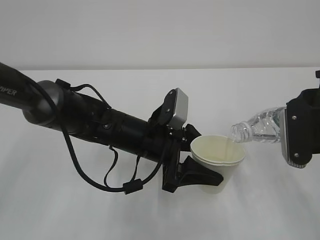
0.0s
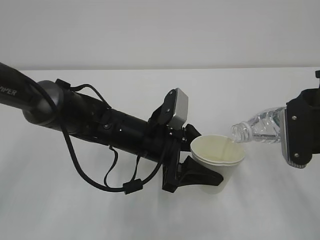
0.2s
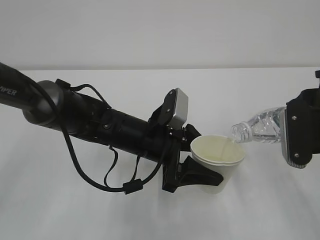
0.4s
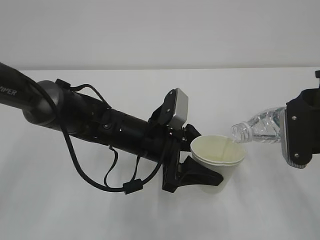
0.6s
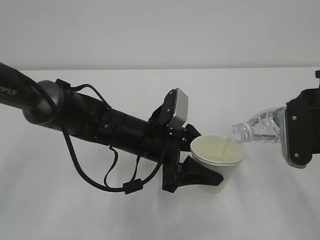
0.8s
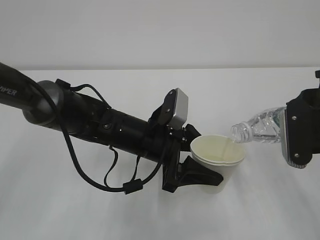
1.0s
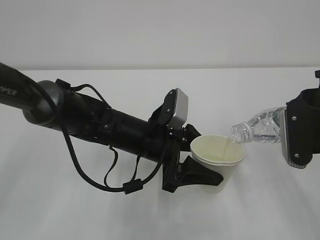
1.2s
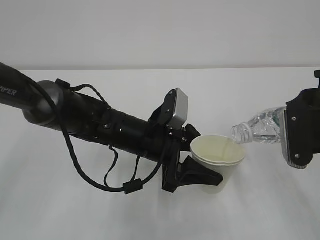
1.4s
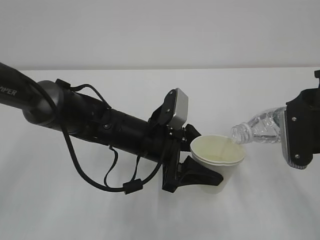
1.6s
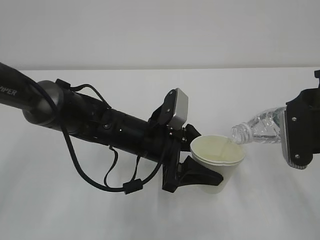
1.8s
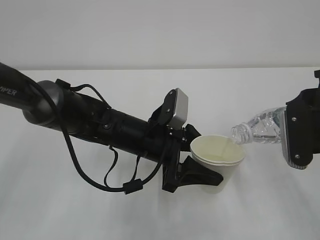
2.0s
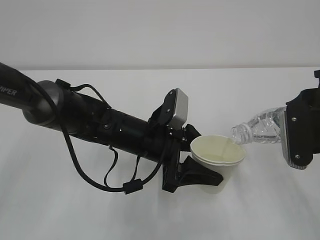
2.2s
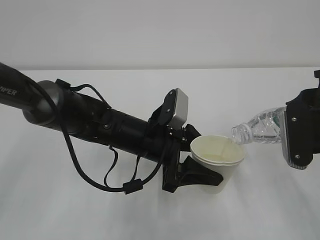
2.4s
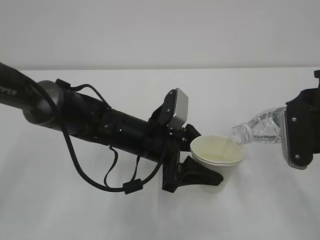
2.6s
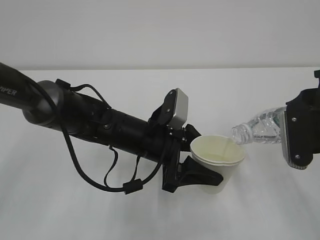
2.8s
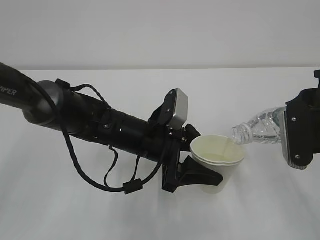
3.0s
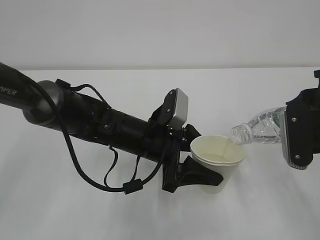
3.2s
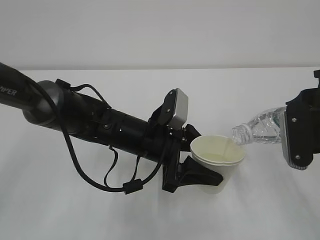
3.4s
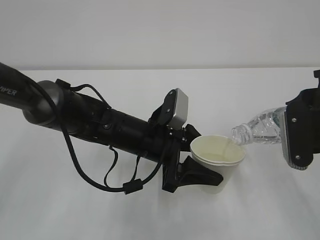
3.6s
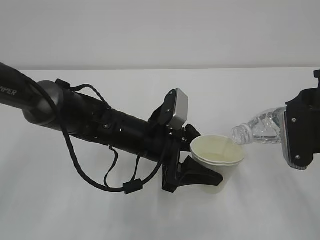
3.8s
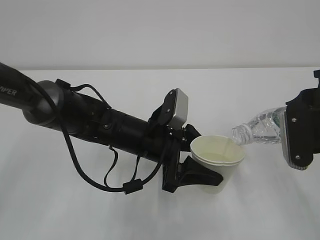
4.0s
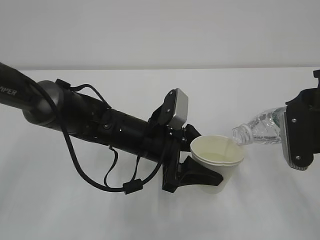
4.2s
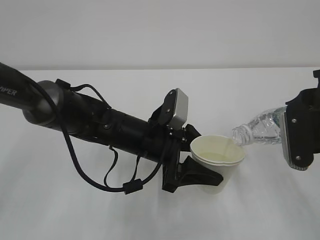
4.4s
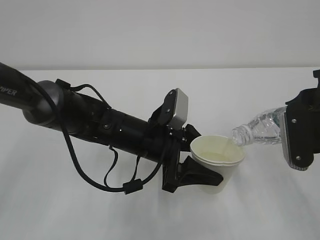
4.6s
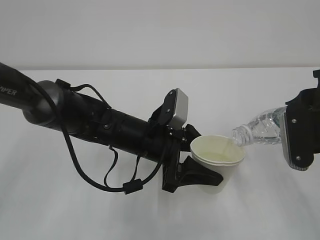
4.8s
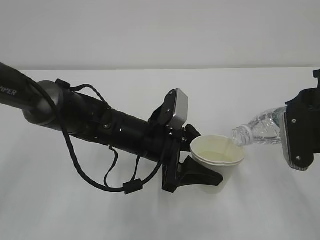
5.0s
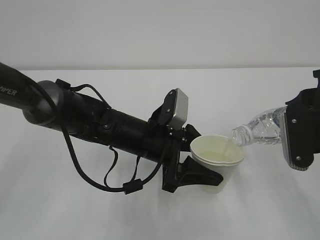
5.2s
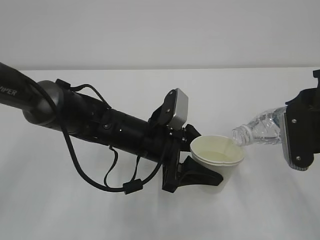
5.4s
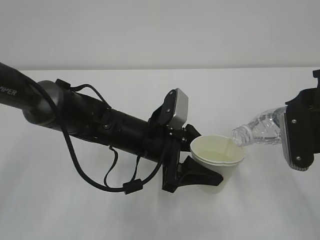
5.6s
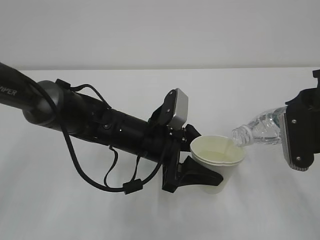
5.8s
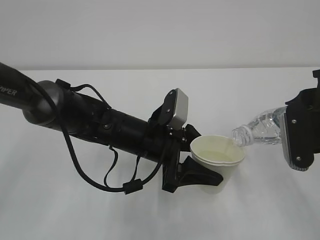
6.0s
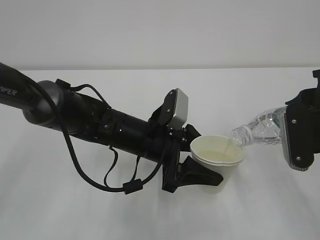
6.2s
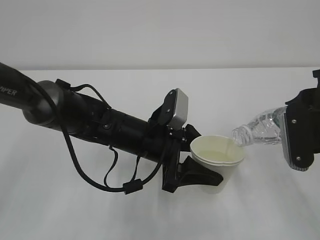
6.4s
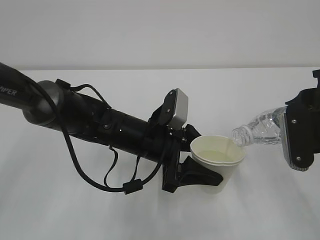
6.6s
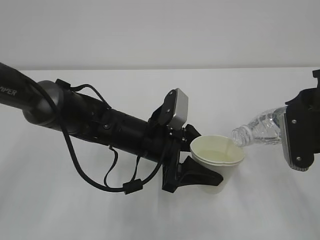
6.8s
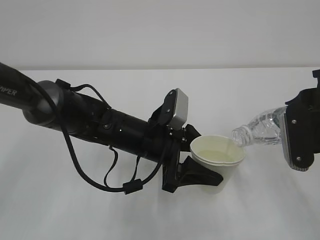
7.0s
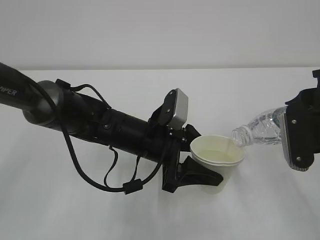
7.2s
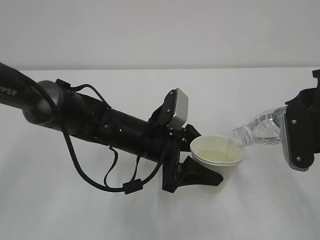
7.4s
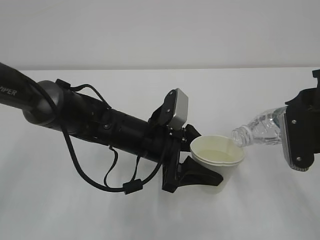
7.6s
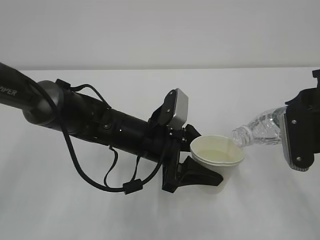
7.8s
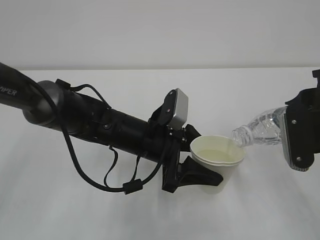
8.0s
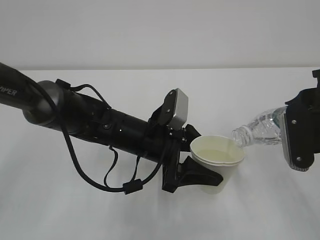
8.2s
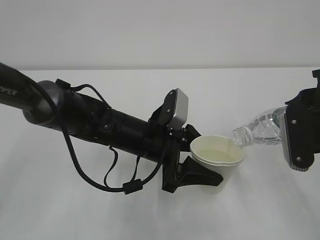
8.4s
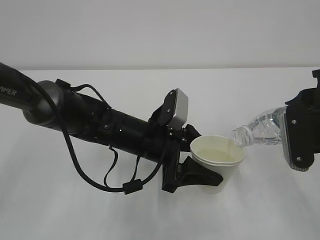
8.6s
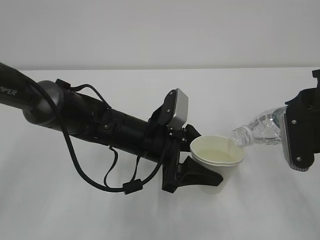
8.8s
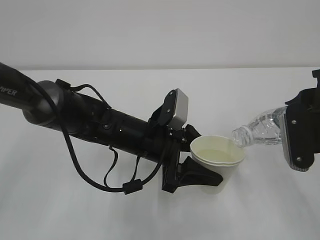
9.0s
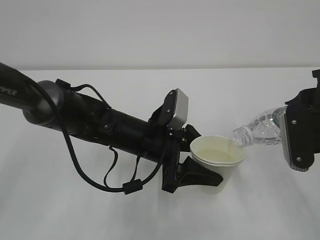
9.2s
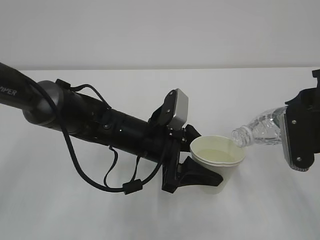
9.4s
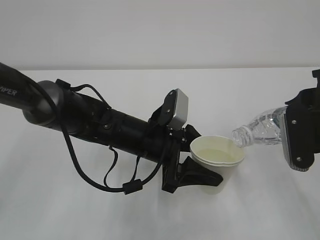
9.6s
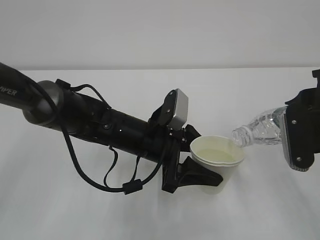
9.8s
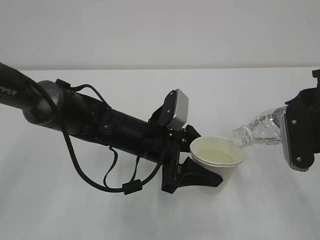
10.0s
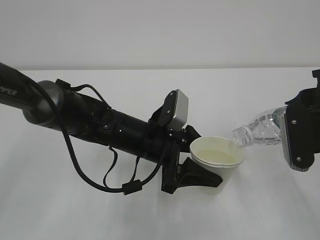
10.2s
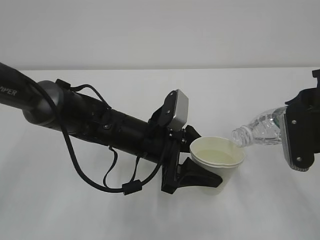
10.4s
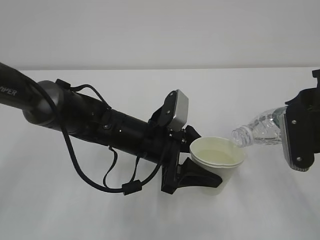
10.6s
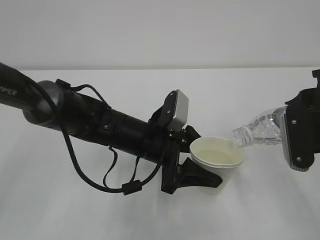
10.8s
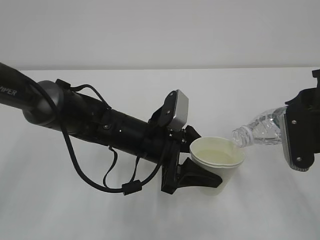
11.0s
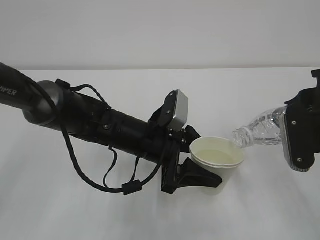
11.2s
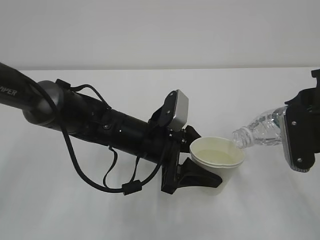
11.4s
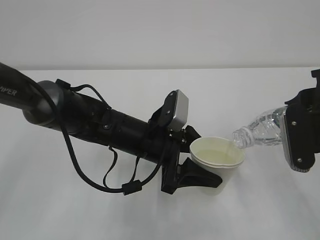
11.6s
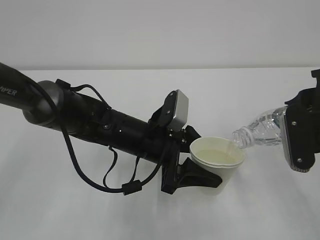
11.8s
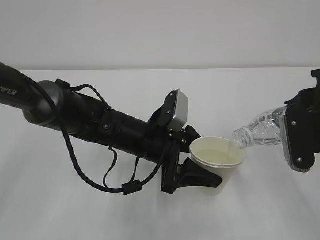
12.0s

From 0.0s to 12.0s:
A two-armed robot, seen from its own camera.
From 0.0s to 10.4s: Neither gripper changes place.
From 10.4s to 12.0s: Neither gripper changes place.

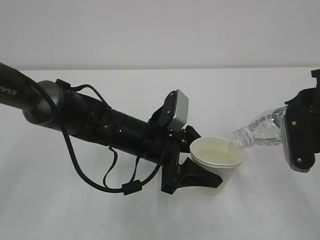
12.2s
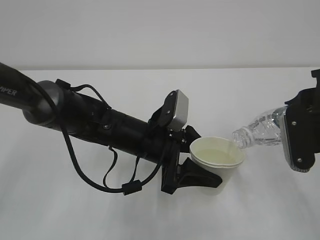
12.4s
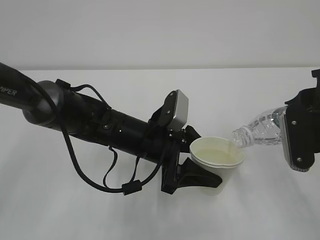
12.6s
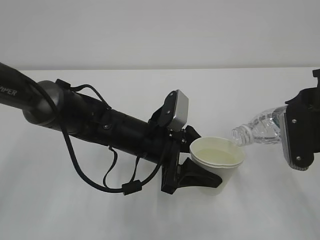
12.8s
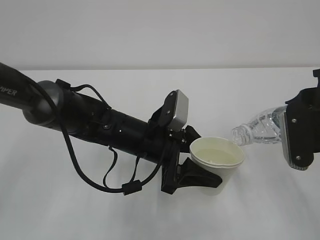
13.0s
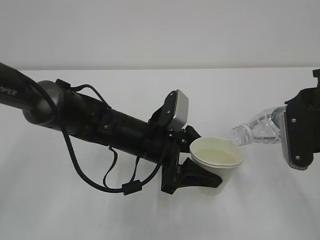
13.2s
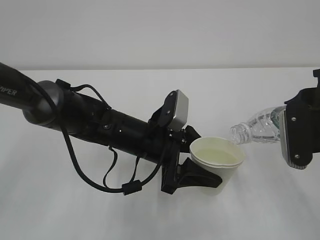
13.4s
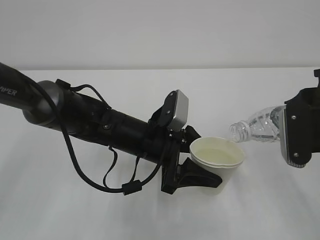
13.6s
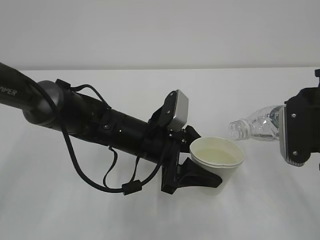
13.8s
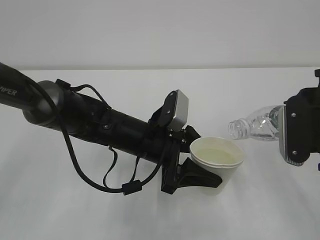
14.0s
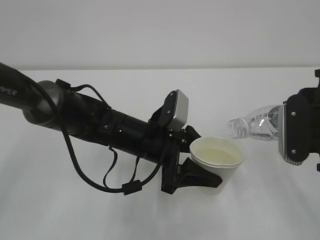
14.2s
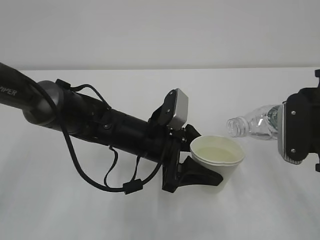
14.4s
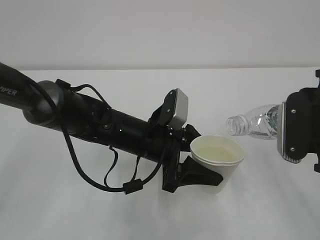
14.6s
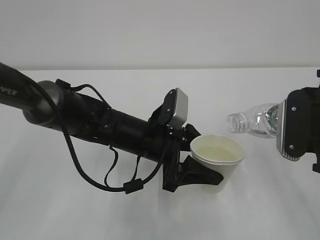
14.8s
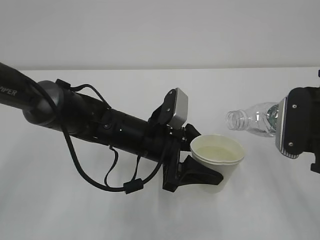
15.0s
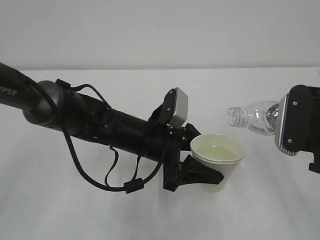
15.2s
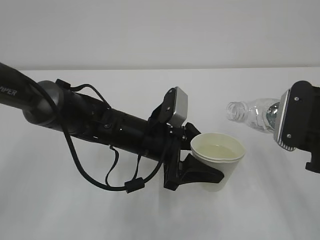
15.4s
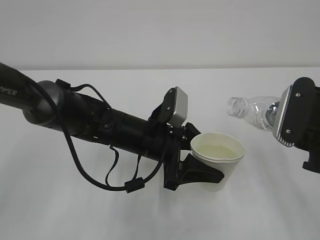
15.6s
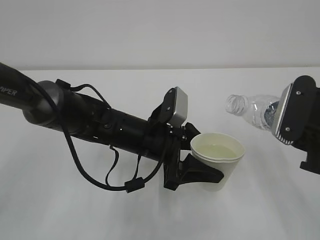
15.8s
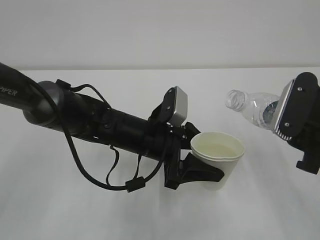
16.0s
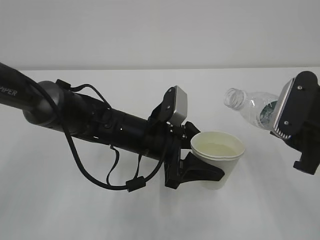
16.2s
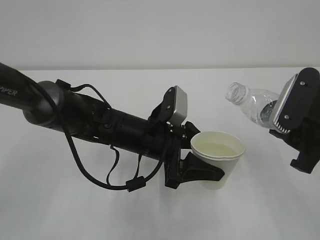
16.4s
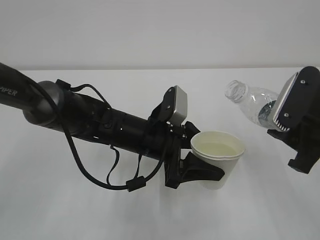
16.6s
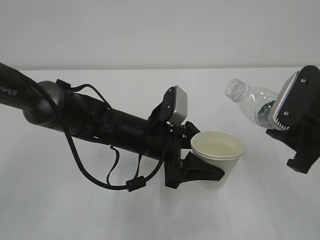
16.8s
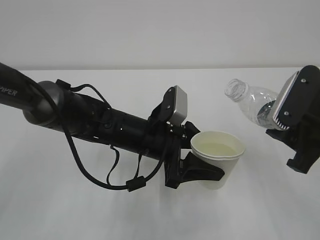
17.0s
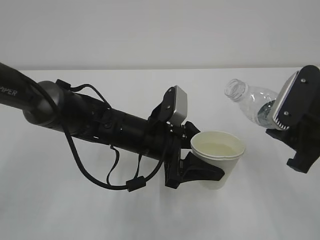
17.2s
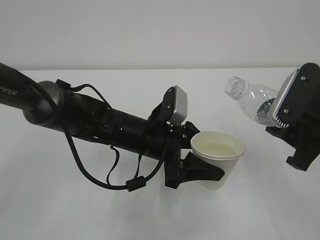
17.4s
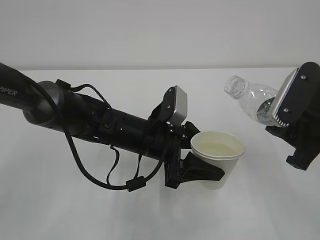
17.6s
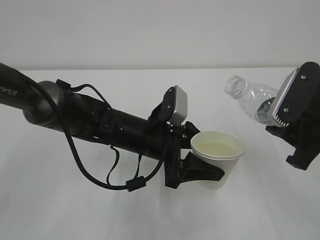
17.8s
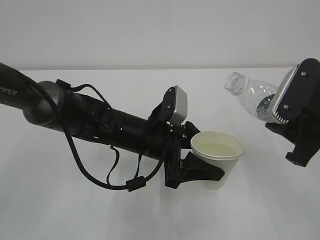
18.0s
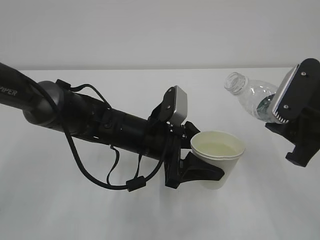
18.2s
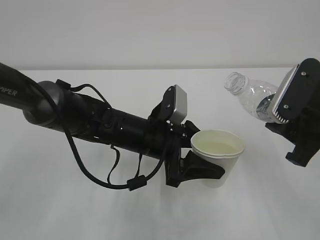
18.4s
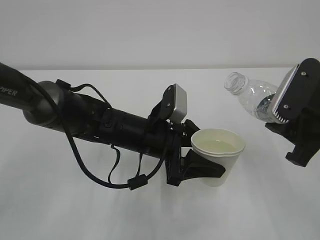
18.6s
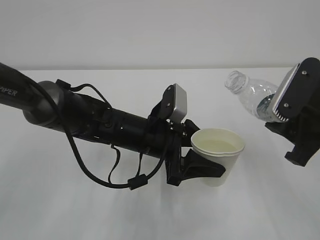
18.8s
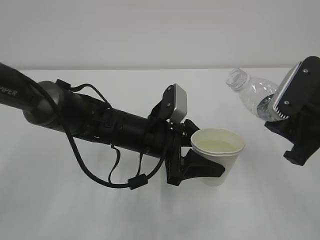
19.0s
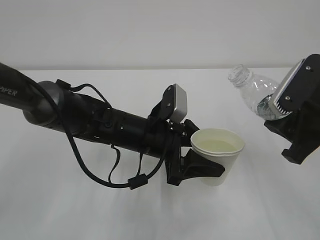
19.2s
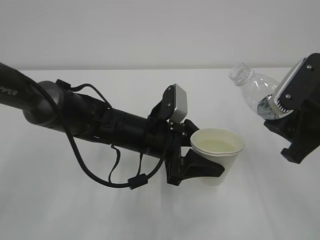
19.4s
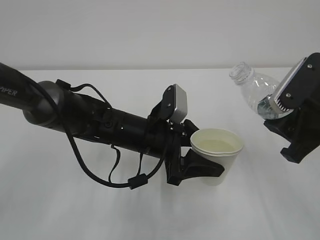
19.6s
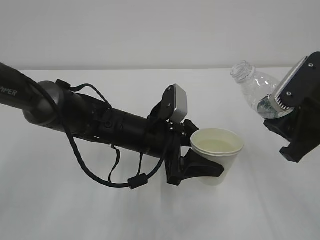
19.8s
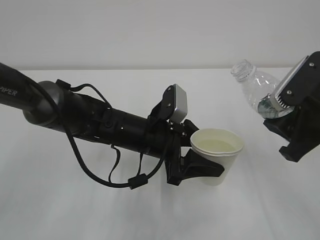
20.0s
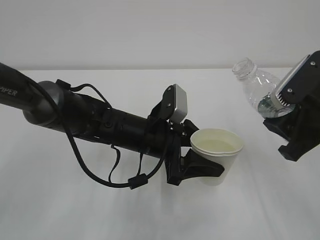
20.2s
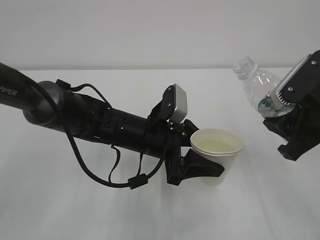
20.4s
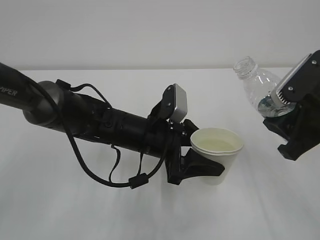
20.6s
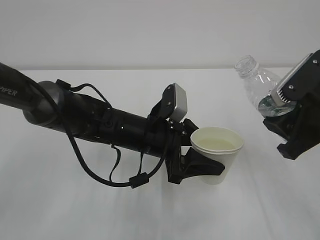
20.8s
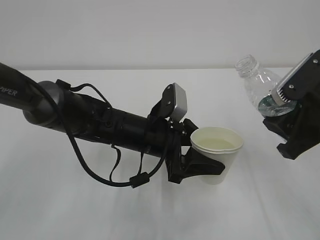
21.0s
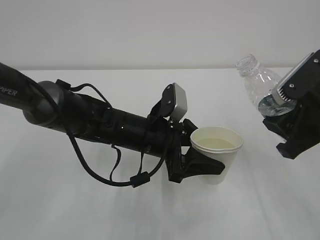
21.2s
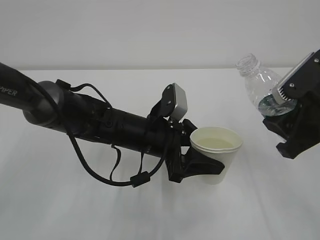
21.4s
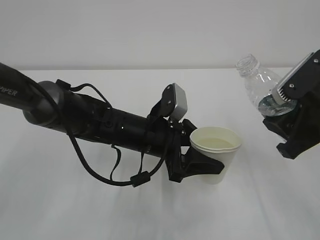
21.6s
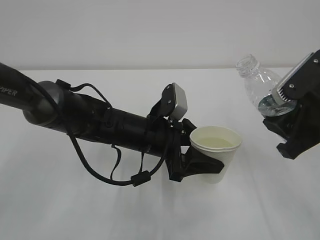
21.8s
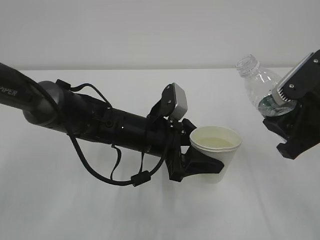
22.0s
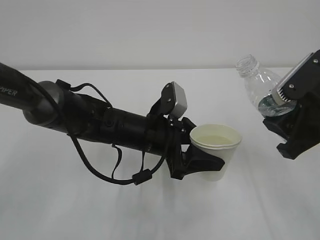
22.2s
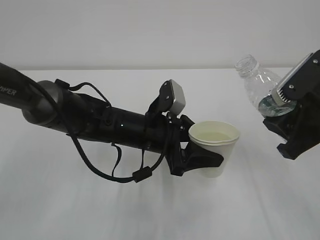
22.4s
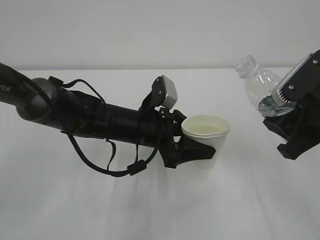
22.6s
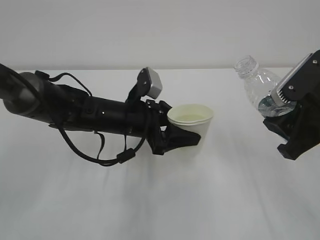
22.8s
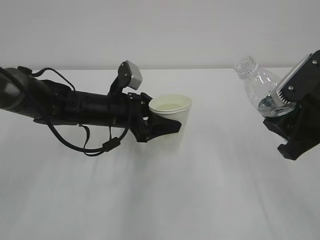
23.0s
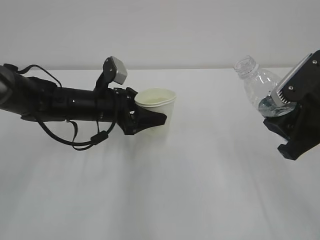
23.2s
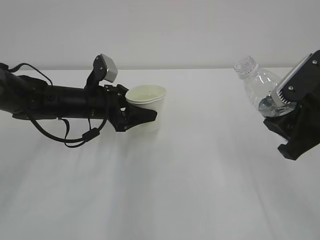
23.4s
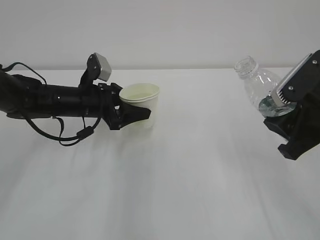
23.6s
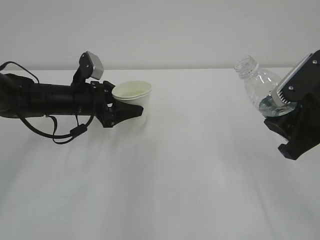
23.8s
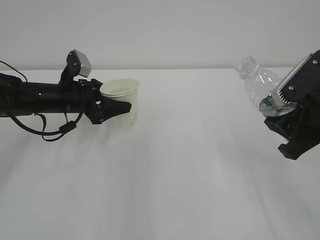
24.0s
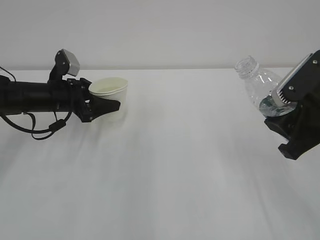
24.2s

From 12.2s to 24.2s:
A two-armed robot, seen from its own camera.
From 12.2s to 15.2s: There are only small adjustments of the grippers.
From 16.6s to 18.2s: The two grippers keep their place.
From 18.2s to 22.6s: The grippers make only small movements.
From 22.6s to 24.2s: The left gripper shifts about 20 cm to the left and forward.
